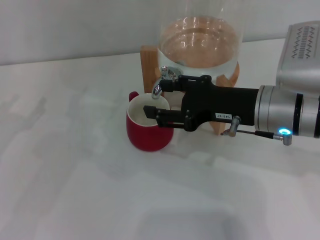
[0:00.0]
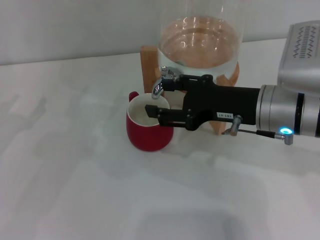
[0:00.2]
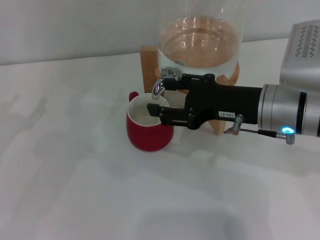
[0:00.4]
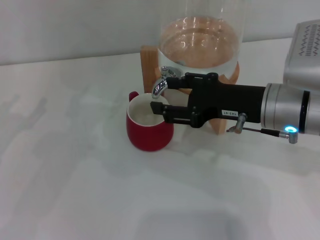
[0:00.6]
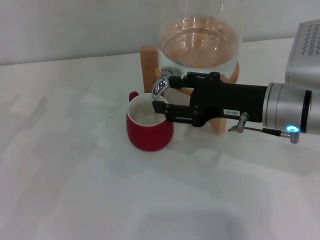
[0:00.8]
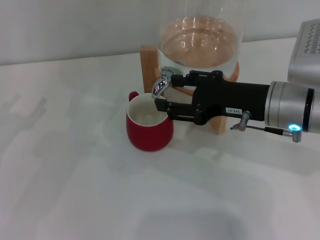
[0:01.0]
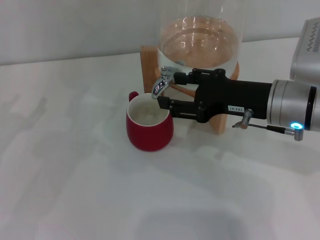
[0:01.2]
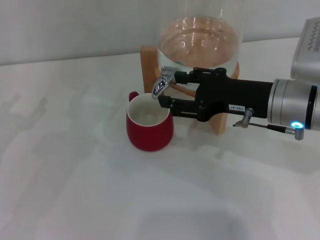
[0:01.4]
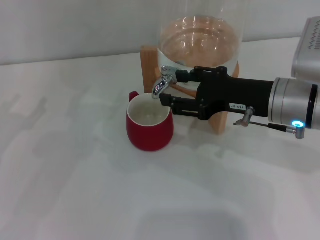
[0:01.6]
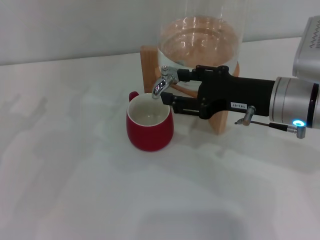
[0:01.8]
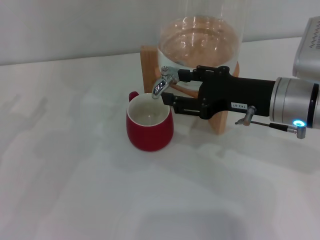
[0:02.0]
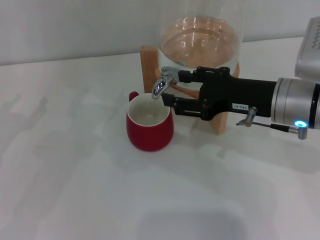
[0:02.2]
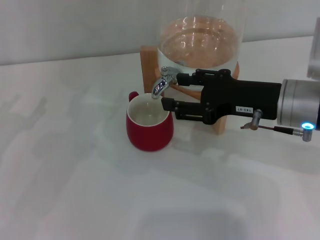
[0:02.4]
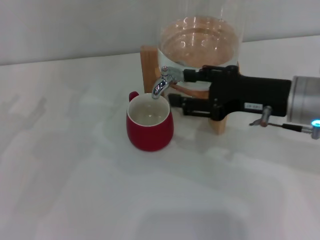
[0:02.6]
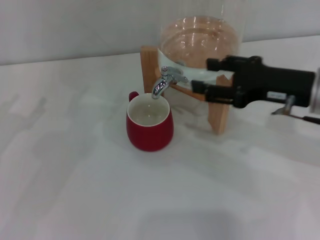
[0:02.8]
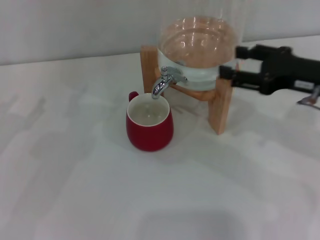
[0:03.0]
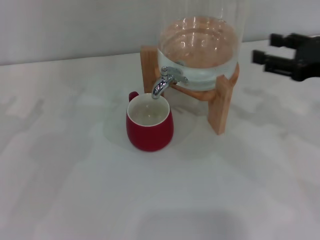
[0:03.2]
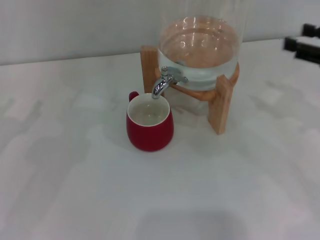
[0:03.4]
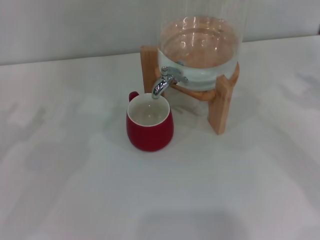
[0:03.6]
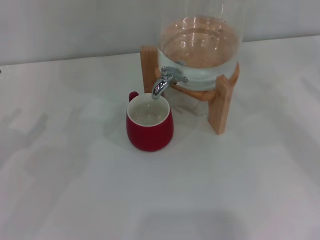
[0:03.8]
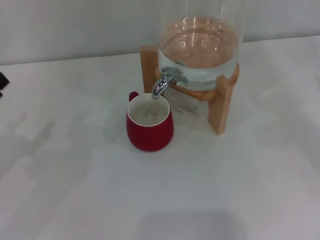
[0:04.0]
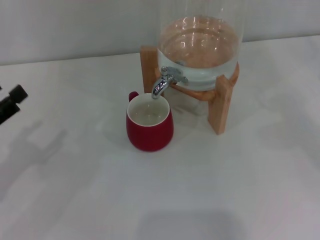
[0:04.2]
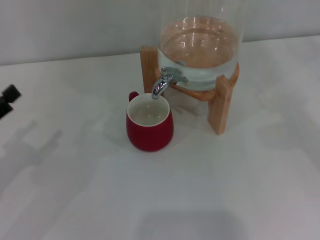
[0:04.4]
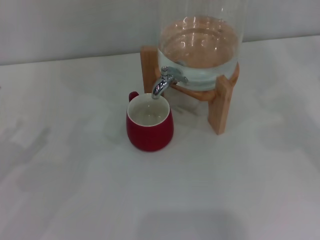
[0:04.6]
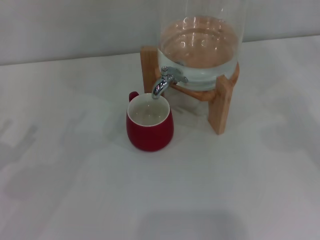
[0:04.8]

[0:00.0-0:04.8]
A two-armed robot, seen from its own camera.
Task of the whole recording: the left gripper pick up the red cup and place it horizontally under the faucet, the right gripper turn on the faucet to fill the cup, and then turn off the faucet.
Step, 0:00.0 to 0:02.6: Close the dispenser valve with the right gripper.
0:00.0 to 0:01.6: The grippers move only a little.
0:01.6 to 0:03.2: The right gripper shifts roughly 10 cm to the right.
0:03.2 to 0:04.8: The left gripper heads backward, covering some 5 cm. The right gripper is displaced to the right by approximately 15 cm.
